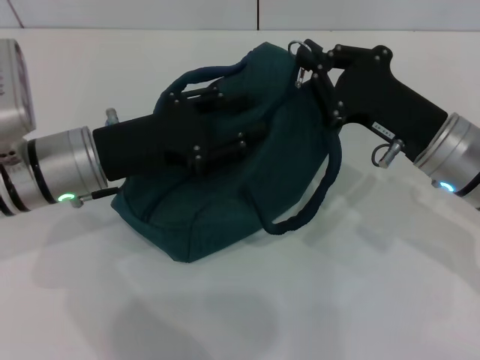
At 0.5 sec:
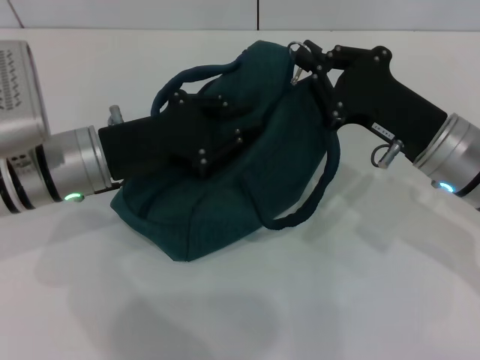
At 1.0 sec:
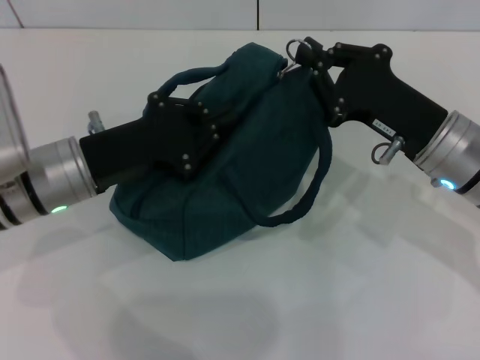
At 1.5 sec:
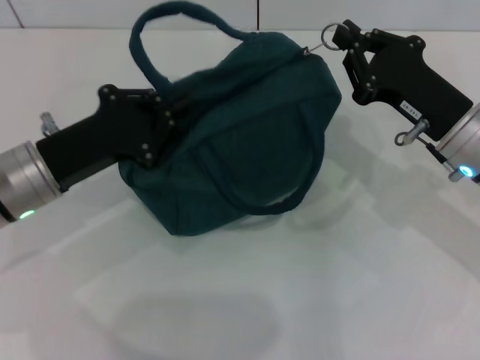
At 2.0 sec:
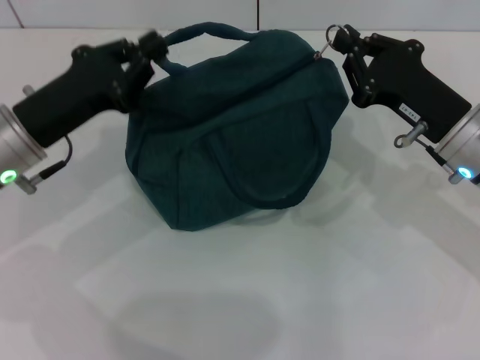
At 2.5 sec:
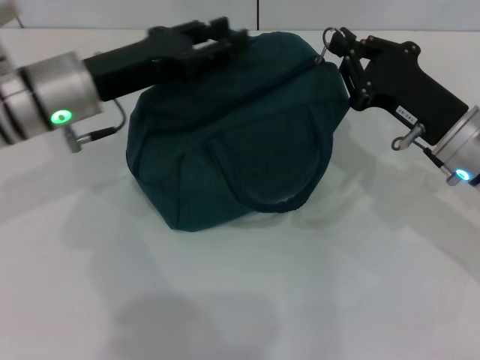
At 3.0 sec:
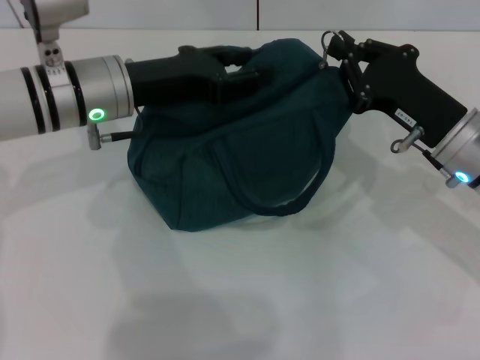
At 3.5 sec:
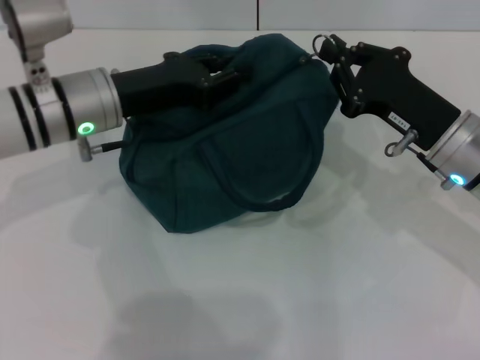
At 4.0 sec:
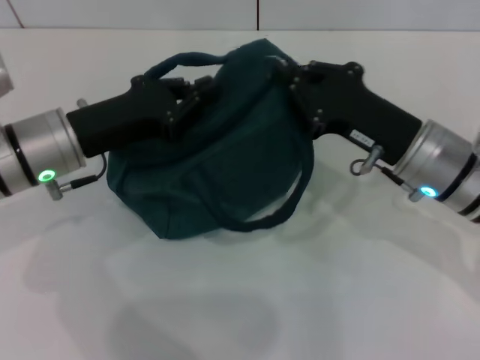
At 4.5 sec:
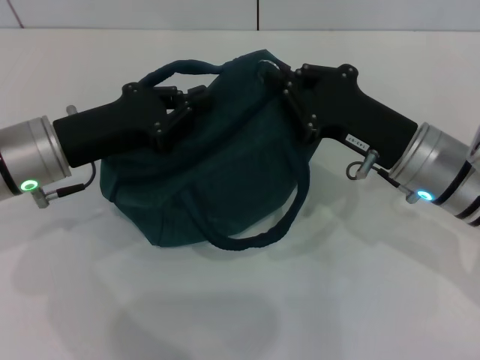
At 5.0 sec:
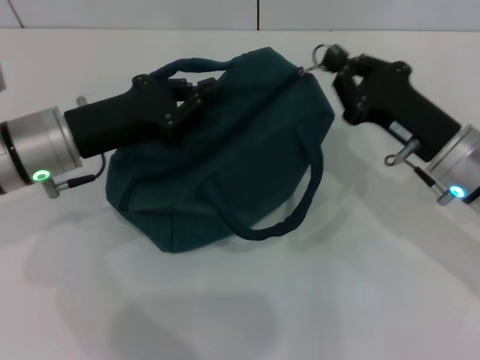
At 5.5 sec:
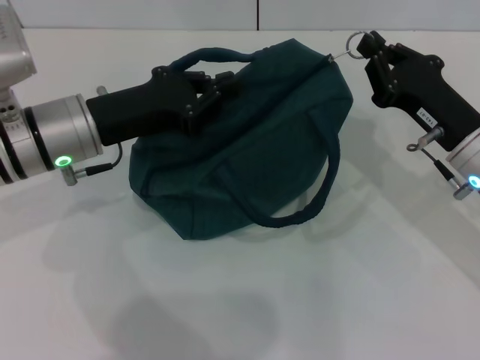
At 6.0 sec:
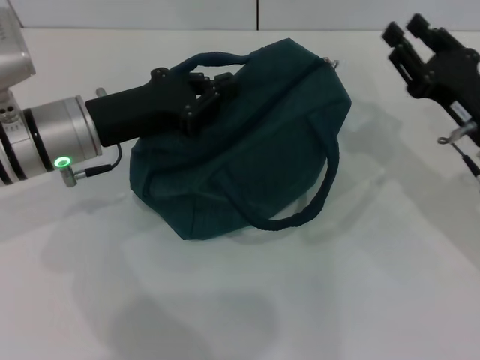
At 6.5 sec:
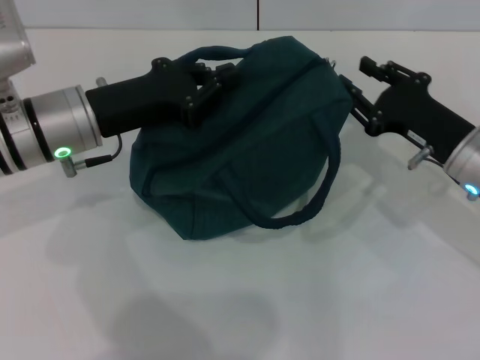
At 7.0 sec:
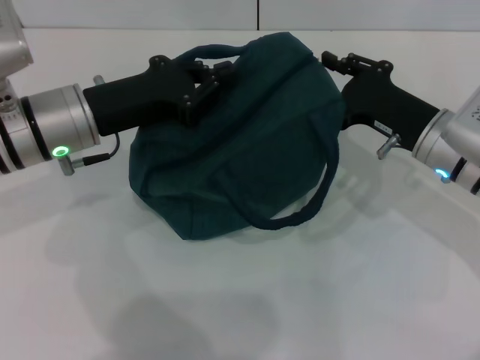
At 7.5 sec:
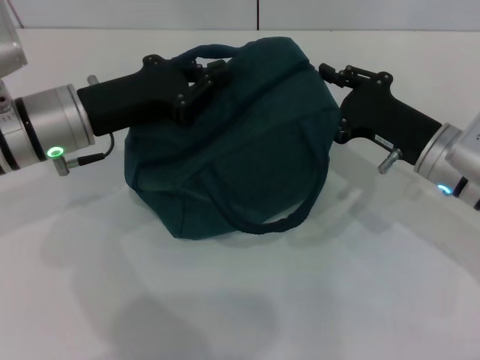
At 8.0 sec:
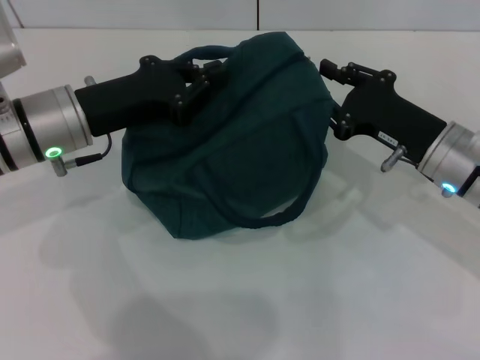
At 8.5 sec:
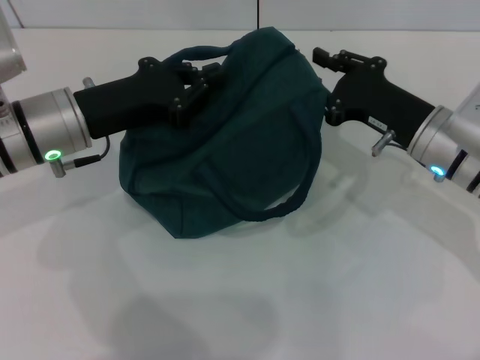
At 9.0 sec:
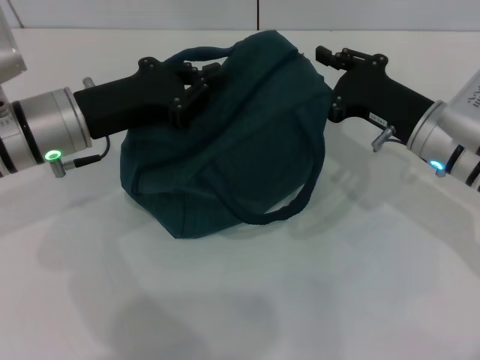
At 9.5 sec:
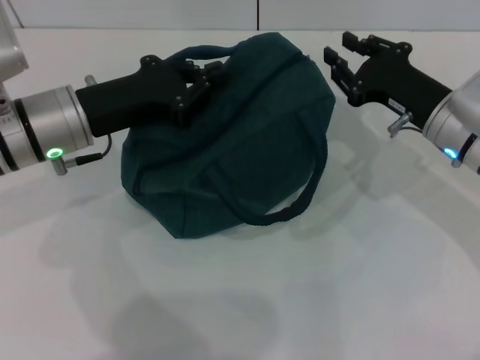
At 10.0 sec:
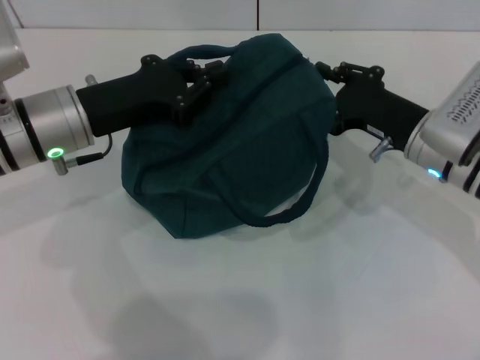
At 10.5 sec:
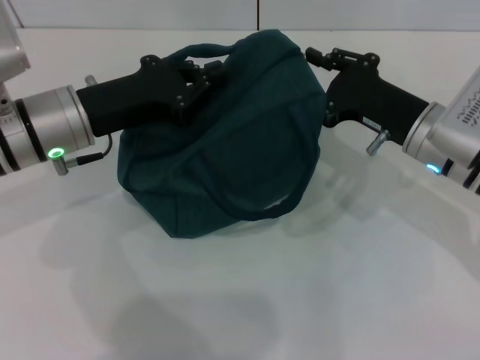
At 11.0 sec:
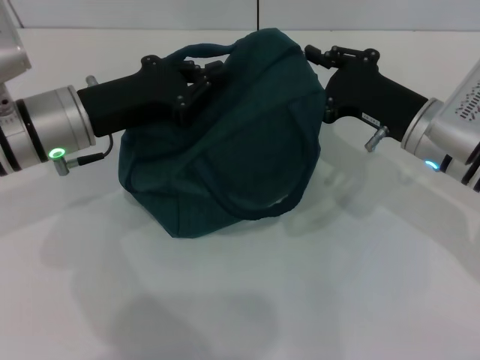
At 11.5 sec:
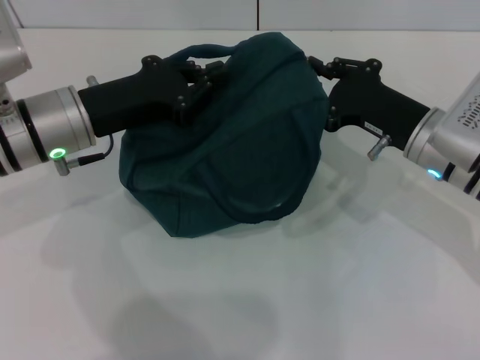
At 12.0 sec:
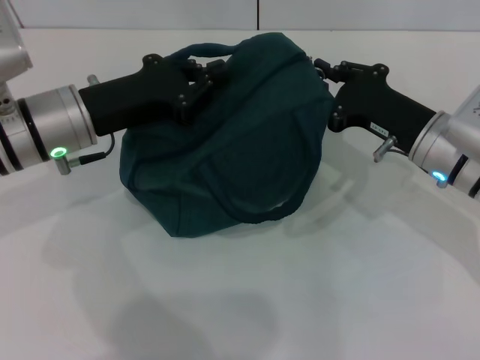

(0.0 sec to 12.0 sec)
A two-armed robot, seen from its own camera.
0.0 sec - 2.0 sec: The left gripper closes up.
2.0 sec - 4.0 sec: The left gripper opens, then closes once more.
4.0 sec - 6.0 sec: The right gripper moves to the right, approximately 5 cm.
8.0 sec - 12.0 sec: The grippers make only small movements.

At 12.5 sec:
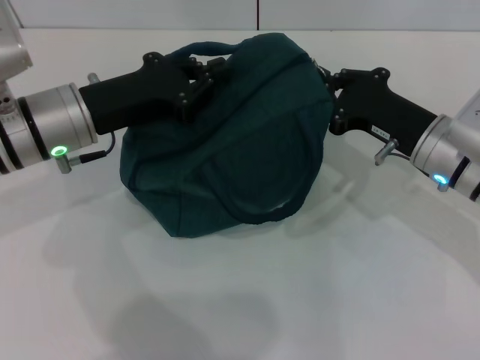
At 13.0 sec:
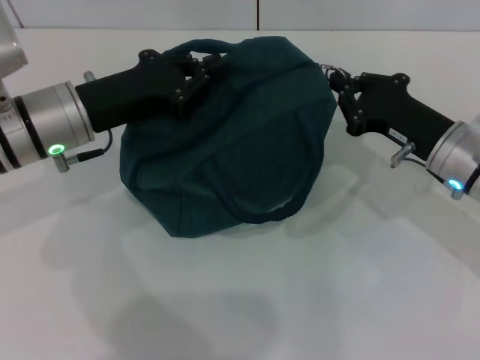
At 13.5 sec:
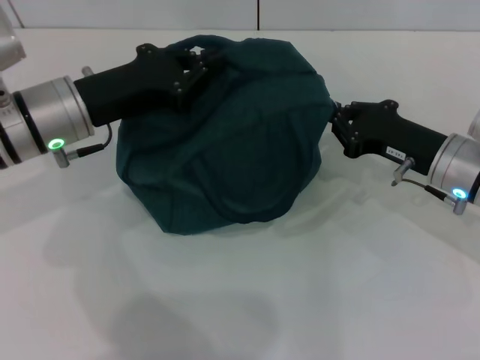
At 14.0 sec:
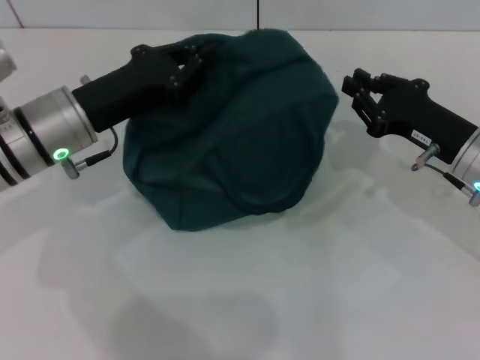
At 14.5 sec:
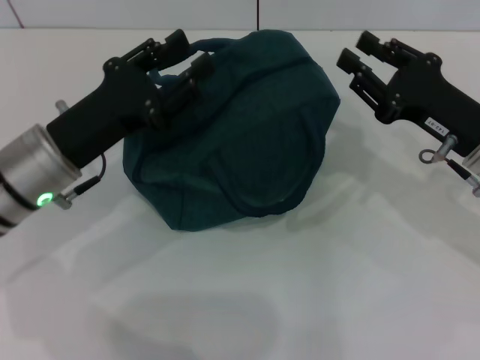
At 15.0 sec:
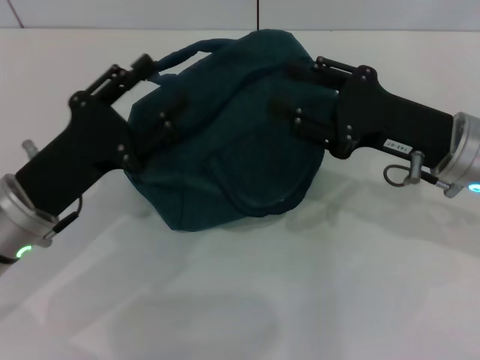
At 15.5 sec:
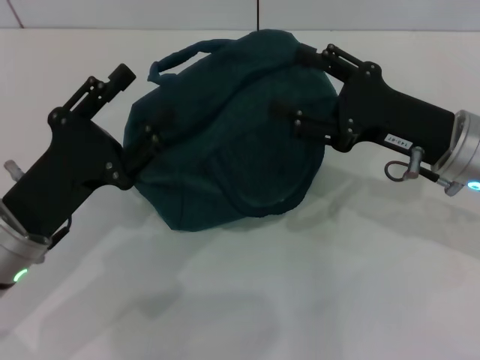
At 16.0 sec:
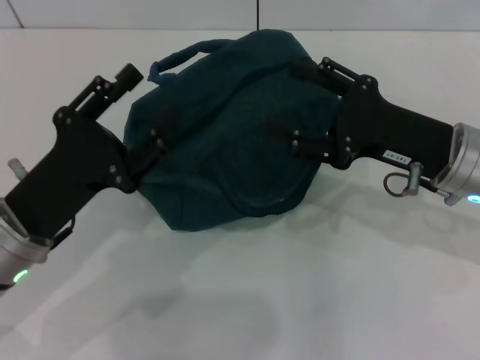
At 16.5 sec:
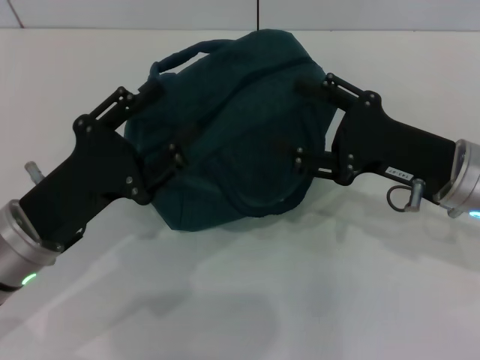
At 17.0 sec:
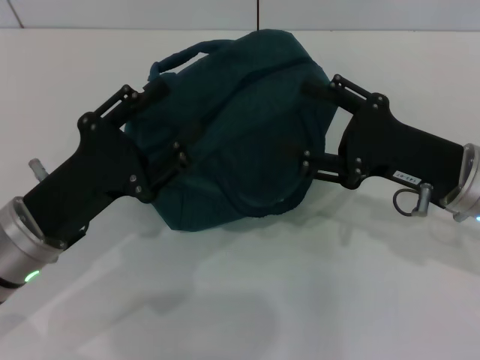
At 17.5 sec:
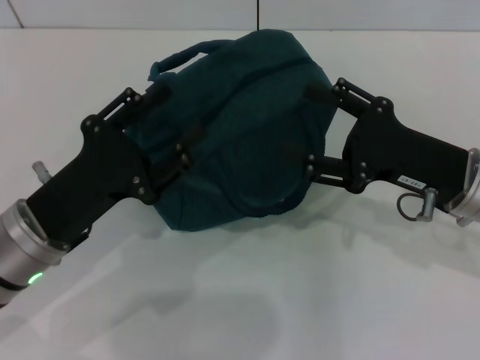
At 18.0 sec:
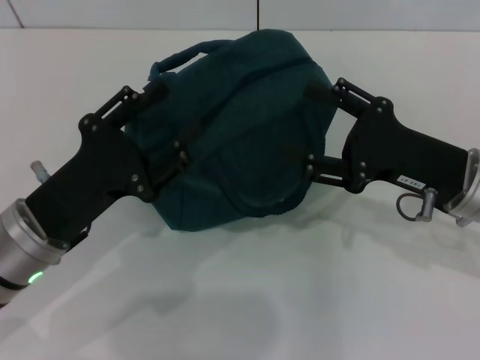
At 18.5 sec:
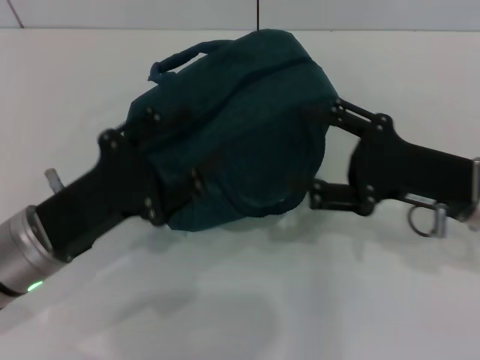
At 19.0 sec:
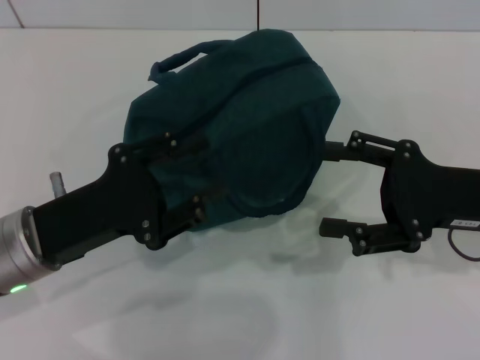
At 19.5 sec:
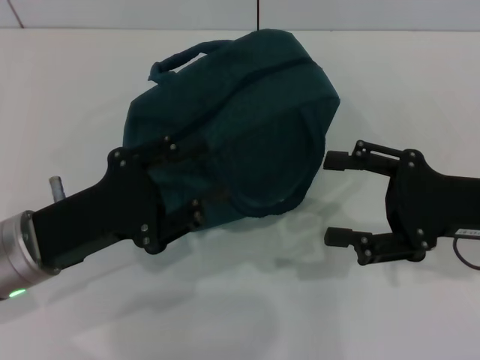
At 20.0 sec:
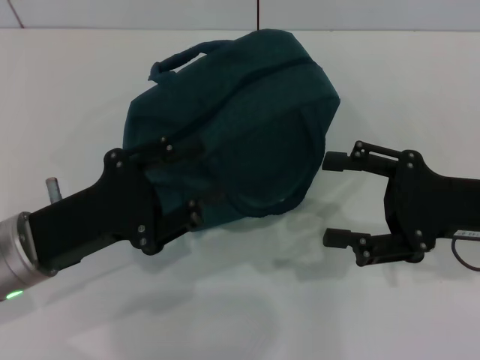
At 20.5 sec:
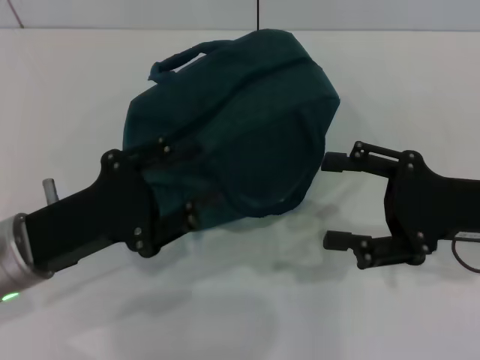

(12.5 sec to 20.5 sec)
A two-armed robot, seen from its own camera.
12.5 sec - 14.5 sec: The left gripper ends up approximately 5 cm from where it was, and opens its fingers. Meanwhile the right gripper opens its fingers.
14.5 sec - 16.5 sec: The right gripper opens. The left gripper shifts about 5 cm backward.
16.5 sec - 20.5 sec: The grippers stay close to where they were, moving slightly.
